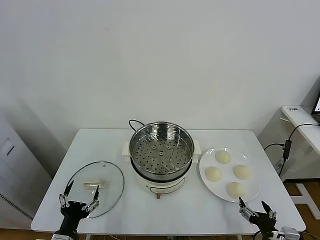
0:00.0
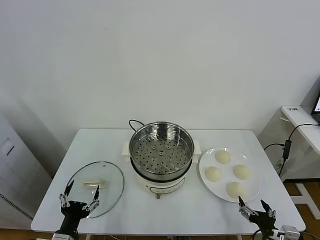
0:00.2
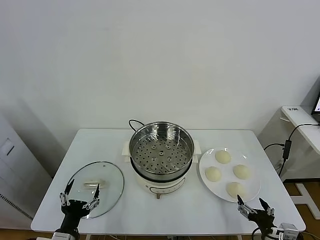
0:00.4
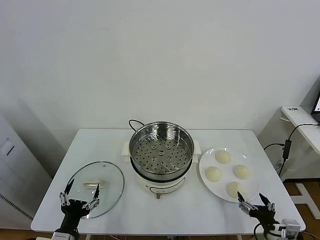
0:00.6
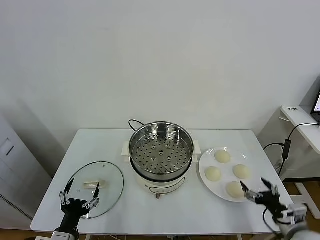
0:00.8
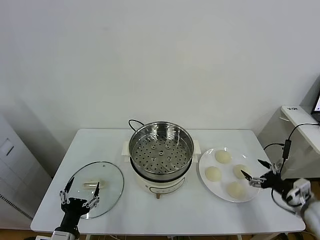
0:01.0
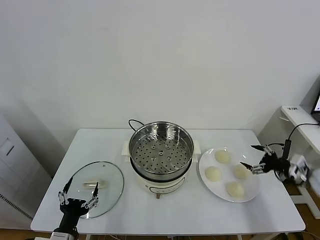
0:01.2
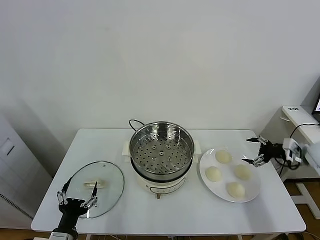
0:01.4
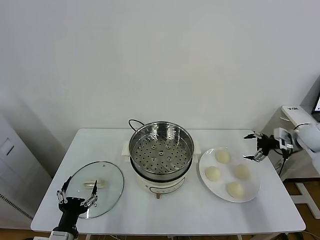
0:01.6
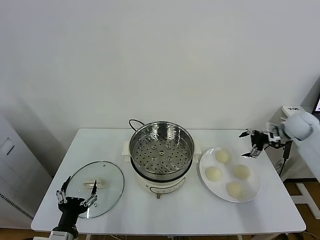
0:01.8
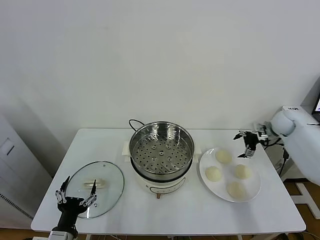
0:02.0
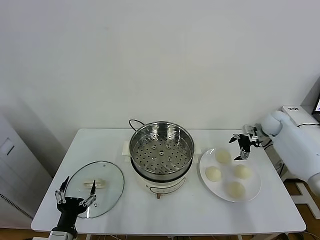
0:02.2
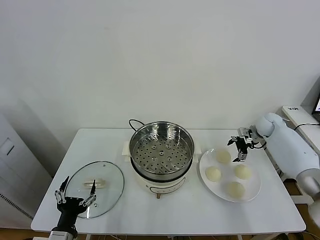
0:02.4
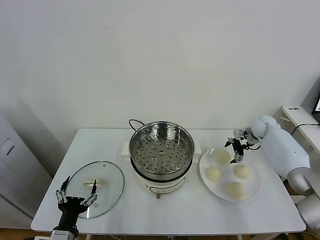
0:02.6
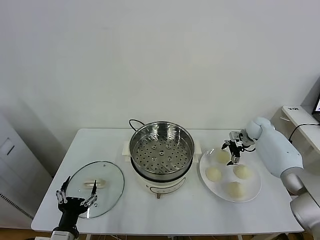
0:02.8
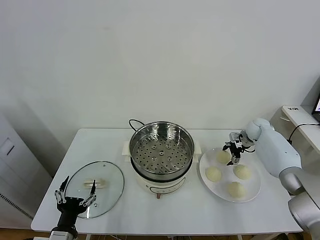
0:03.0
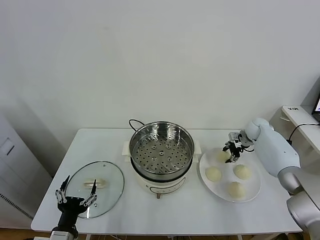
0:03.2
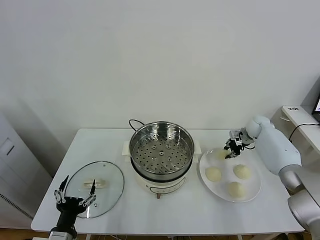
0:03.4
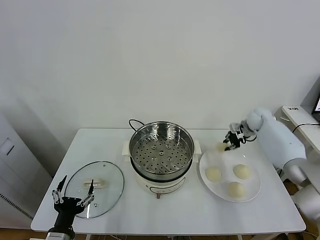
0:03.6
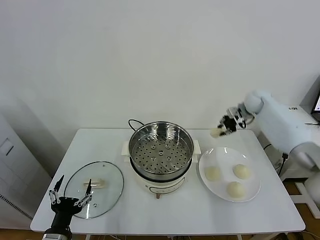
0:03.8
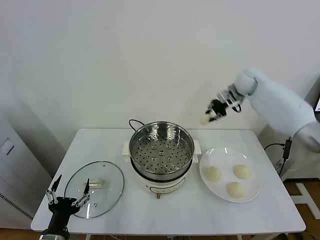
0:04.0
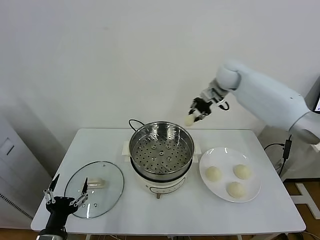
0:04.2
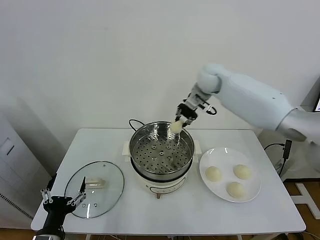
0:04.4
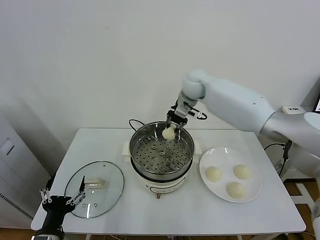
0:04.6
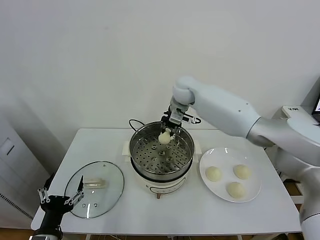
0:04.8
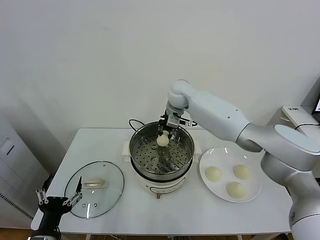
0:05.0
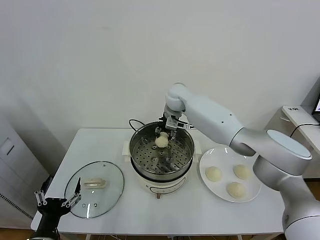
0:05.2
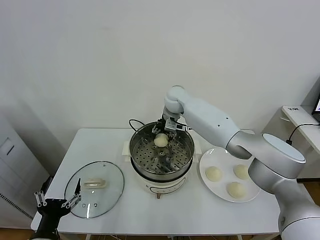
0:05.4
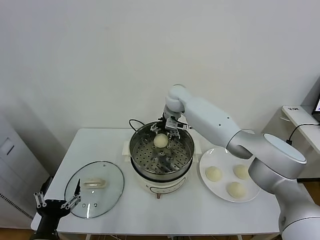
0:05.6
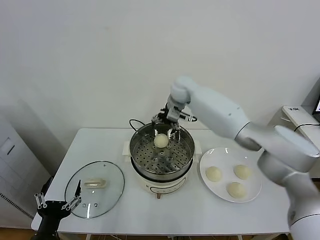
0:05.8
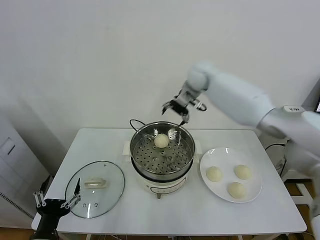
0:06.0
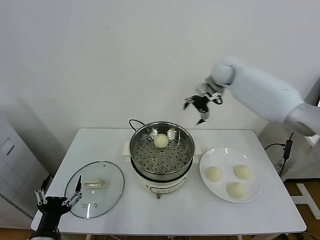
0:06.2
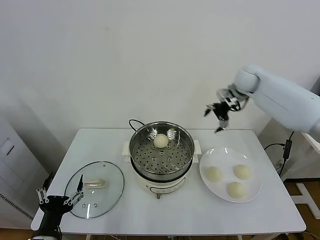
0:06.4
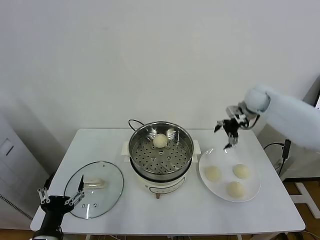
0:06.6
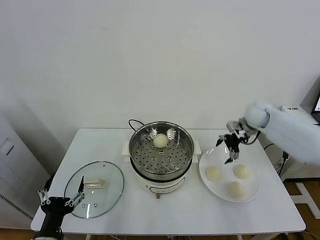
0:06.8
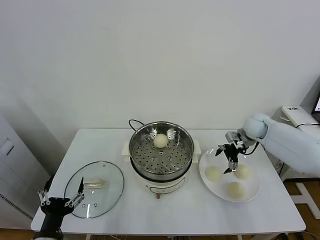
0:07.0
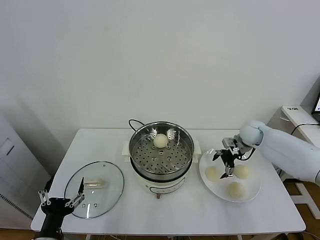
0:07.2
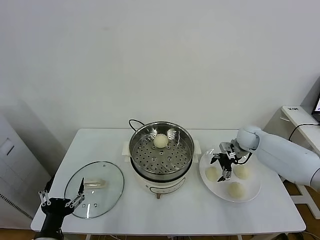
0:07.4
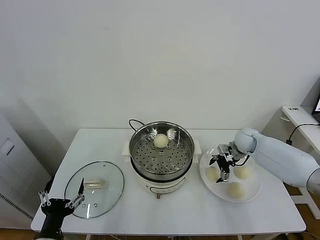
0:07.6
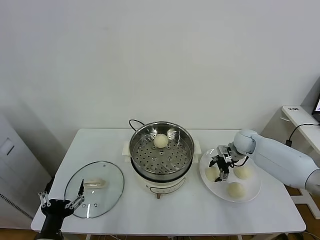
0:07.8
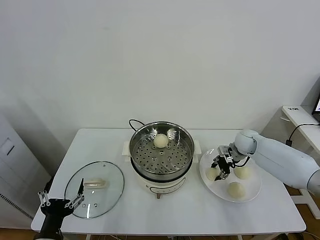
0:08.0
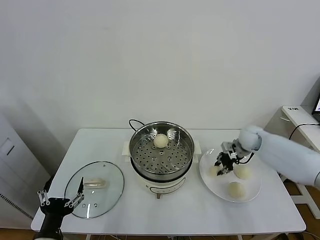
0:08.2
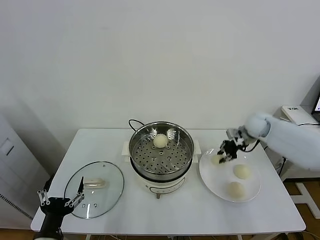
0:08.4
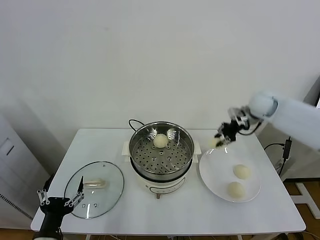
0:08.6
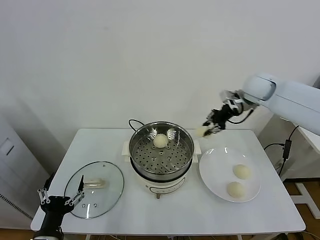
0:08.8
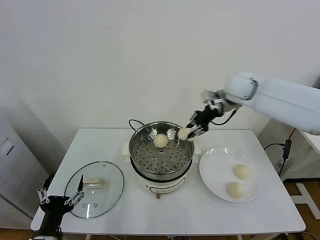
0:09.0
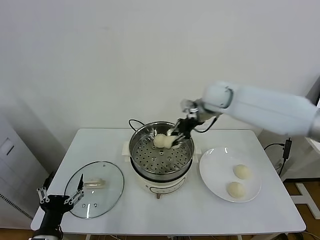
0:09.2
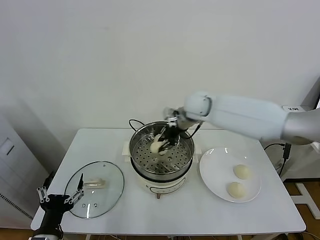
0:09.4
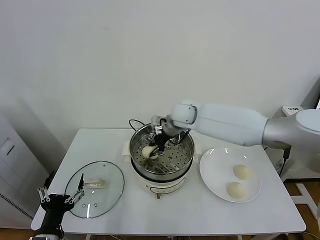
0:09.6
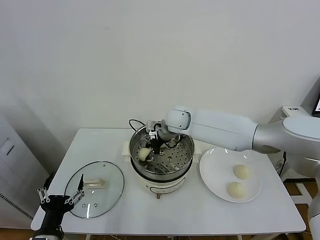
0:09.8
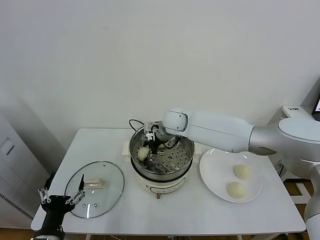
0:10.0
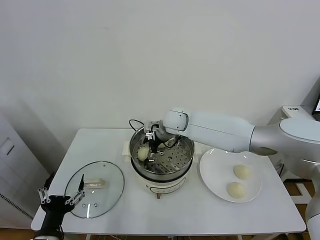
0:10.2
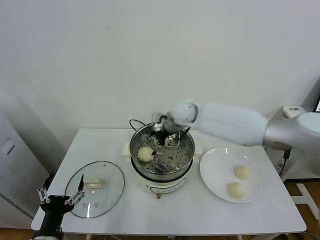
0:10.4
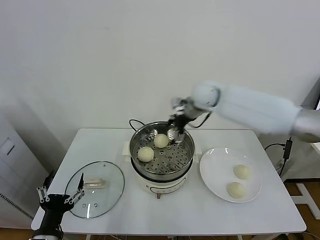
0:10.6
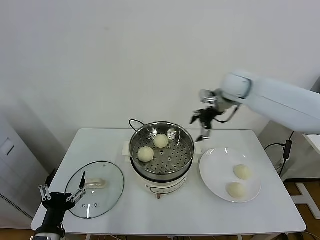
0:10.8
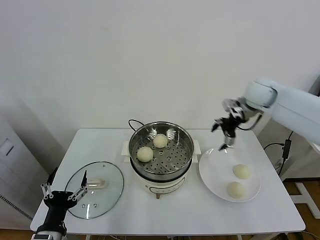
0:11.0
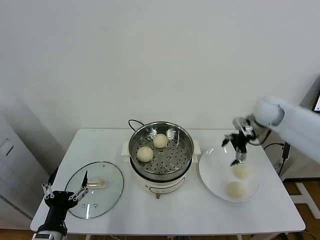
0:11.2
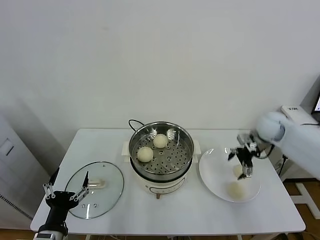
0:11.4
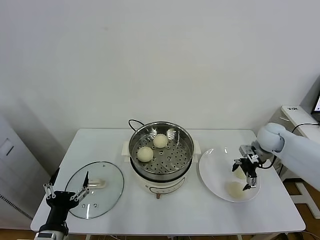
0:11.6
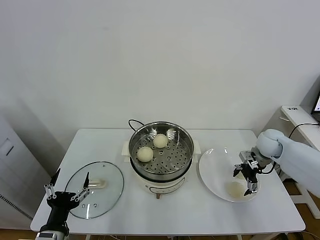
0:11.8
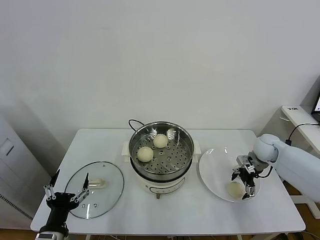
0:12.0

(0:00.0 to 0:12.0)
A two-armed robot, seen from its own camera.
Task of the whole recording: take steamed baozi put them in steamer.
Step, 0:00.0 - 0:03.2: Grasp the baozi in the plate with right gripper.
Step, 0:03.4 - 0:05.6: Place the baozi on the steamer with right gripper.
Step, 0:05.8 - 0:08.0: Grasp the baozi in the plate with right gripper.
Step, 0:08.2 - 0:10.2: Place the baozi on the steamer with right gripper.
0:01.6 - 0:03.0: The right gripper moves downward, forward and to the left, approximately 20 cm.
0:03.0 - 0:04.4: The right gripper shifts some 35 cm to the left and upward, and closes its fingers.
0:04.4 - 0:06.0: The right gripper reaches some 10 cm to the left, then returns, and opens up.
0:06.0 - 0:07.6: The right gripper is displaced downward and to the right by about 30 cm.
0:07.6 - 0:09.0: The right gripper shifts some 25 cm upward and to the left, and closes its fingers.
0:09.0 - 0:10.4: The right gripper travels to the left and downward by about 15 cm, and opens.
0:10.4 - 0:12.0: The right gripper is displaced to the right and downward by roughly 35 cm.

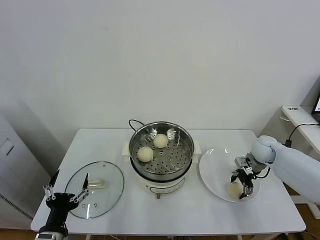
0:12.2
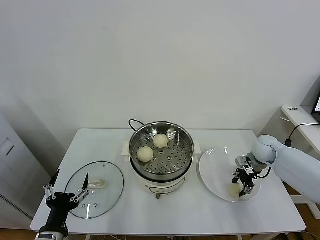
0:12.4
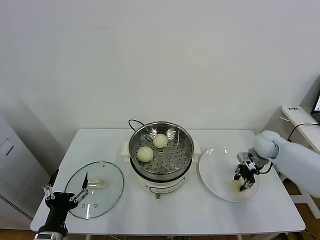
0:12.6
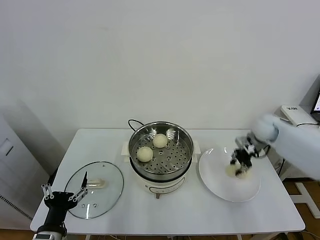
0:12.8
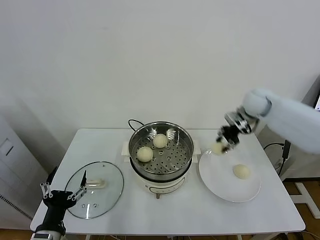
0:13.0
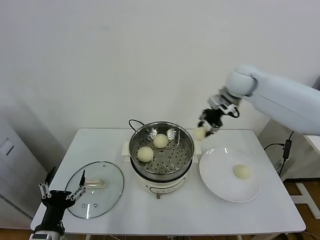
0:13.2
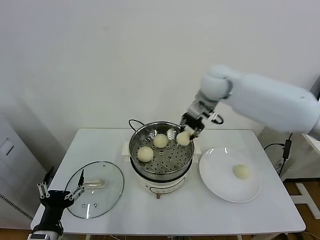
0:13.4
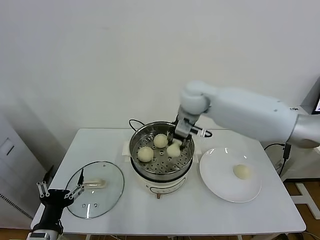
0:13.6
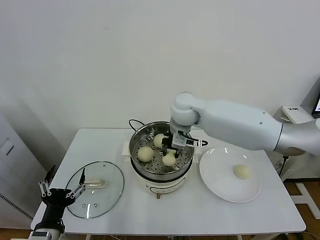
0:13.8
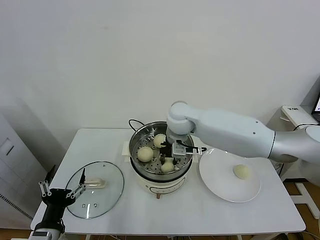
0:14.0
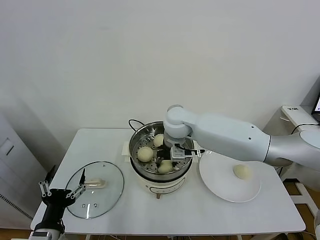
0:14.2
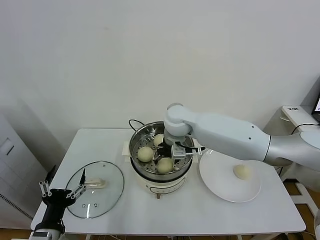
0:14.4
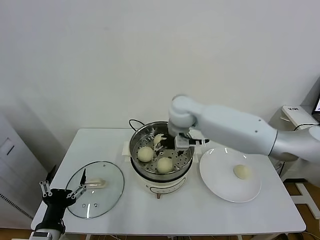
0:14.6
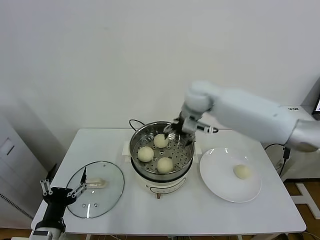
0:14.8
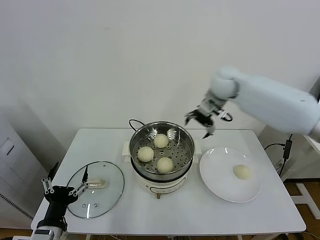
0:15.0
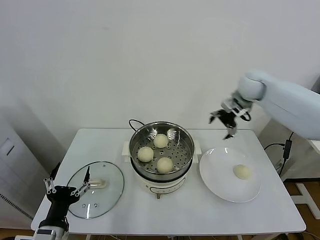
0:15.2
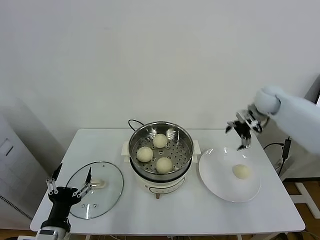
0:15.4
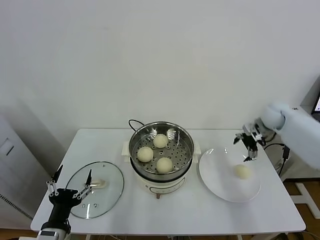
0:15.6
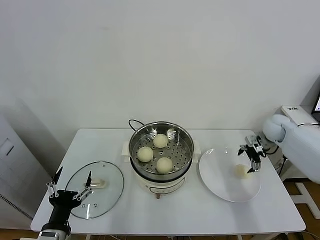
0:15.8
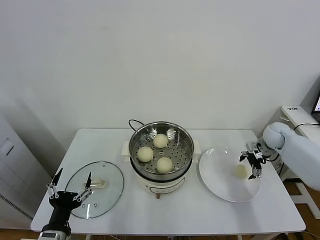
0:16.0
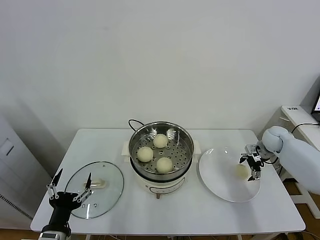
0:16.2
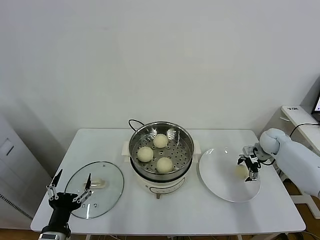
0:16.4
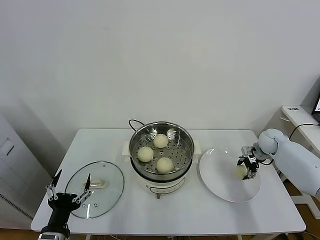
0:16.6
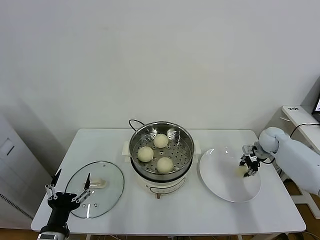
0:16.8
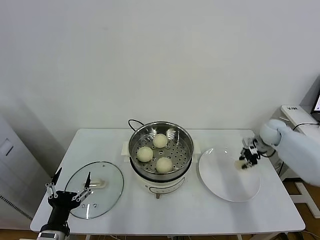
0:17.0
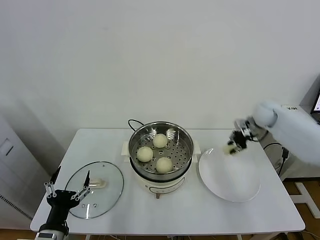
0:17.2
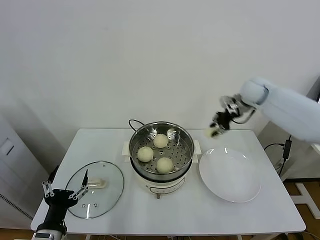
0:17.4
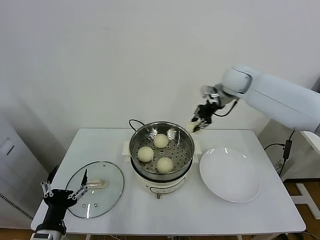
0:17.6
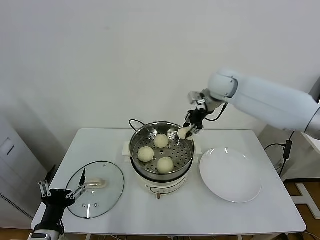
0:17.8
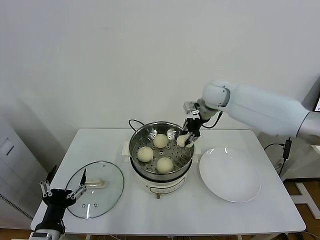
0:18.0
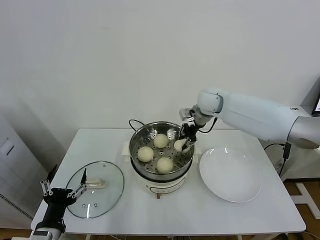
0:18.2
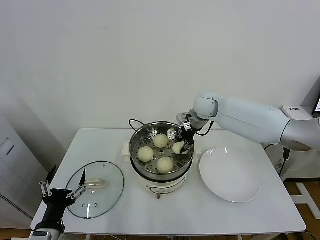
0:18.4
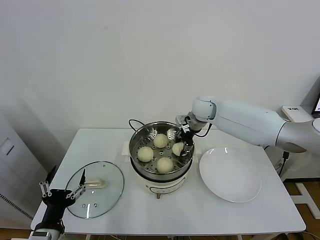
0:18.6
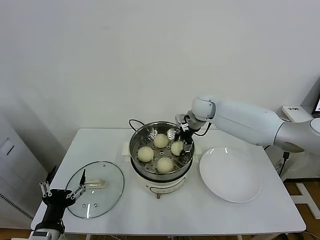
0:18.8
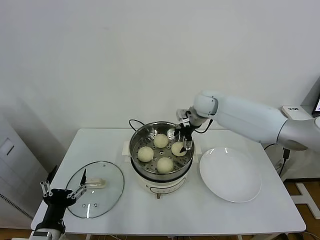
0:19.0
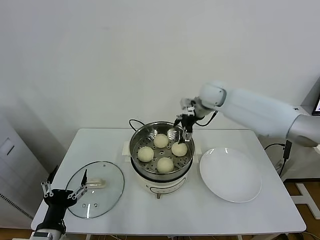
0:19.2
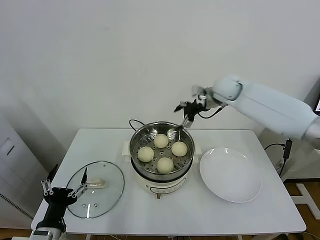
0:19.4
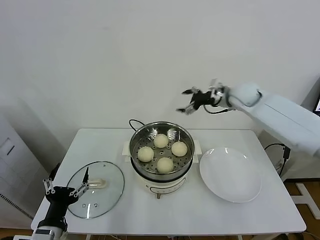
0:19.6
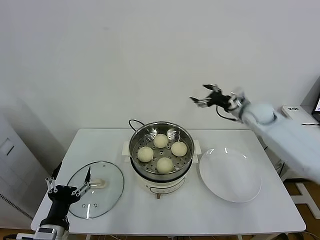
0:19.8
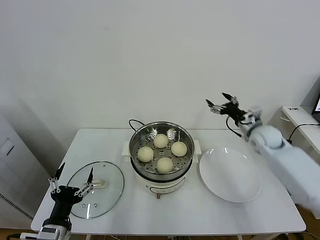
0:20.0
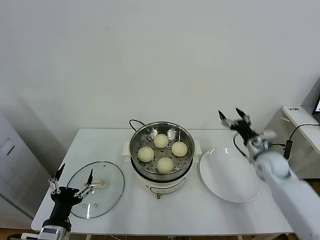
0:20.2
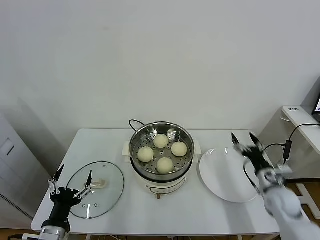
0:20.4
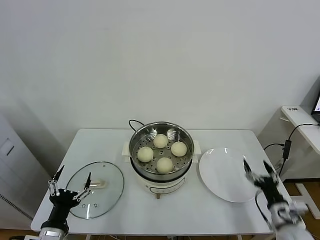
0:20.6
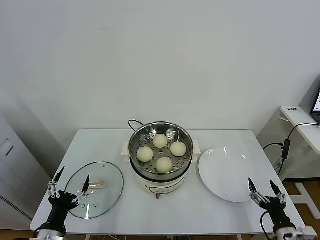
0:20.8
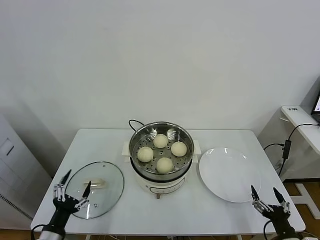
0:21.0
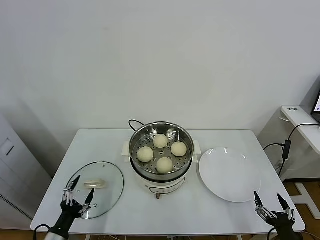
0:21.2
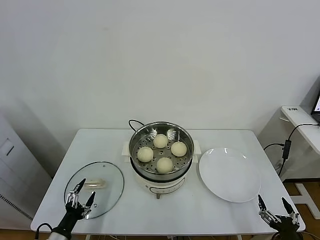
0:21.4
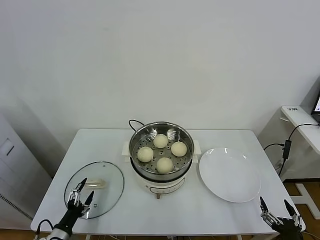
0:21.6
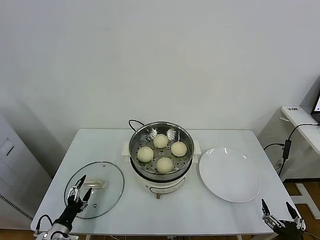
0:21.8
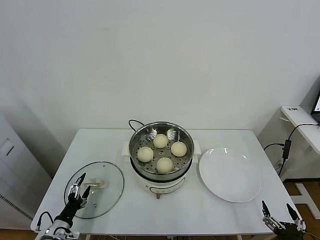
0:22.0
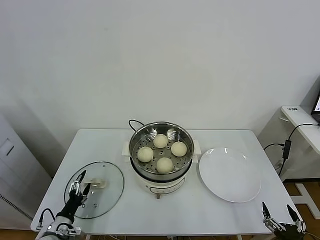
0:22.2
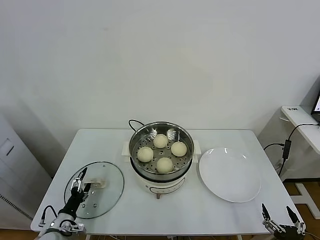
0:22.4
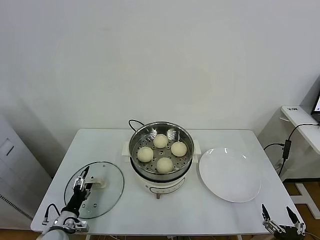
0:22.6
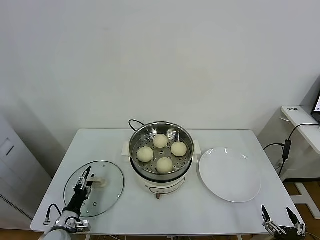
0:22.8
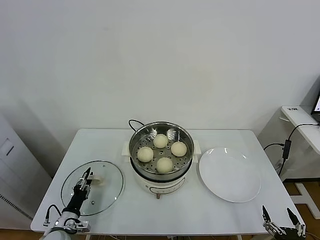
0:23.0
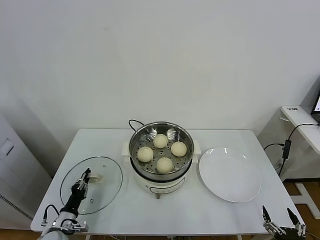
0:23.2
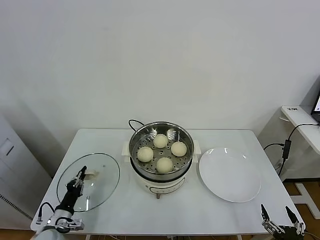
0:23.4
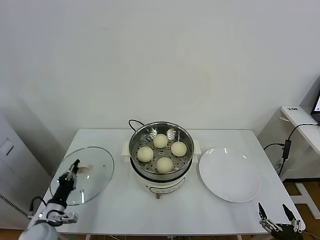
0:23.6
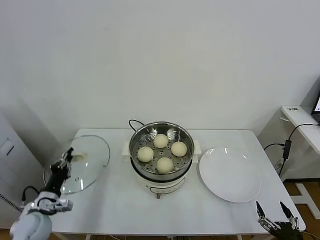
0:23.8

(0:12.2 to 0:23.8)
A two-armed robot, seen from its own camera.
Task of the whole recording: take steamed baozi put them in steamer.
Step, 0:12.6 - 0:14.4: Place the baozi on the steamer with right gripper.
Step, 0:14.6 - 0:16.6: Grasp the baozi in the plate with right gripper.
Step, 0:16.8 - 0:19.0: Place the baozi on the steamer with right gripper.
Step, 0:19.2 - 0:23.4: Grasp the pot lid with left gripper.
0:12.2 - 0:13.6: The right gripper is displaced to the left and upward by approximately 35 cm, and closes up.
0:13.6 - 0:15.0: The right gripper is displaced to the right and forward by some 15 cm, and opens up.
0:15.0 - 0:16.6: The right gripper goes roughly 35 cm downward and to the right.
0:16.6 - 0:18.0: The right gripper shifts about 35 cm to the left and upward, and closes its fingers.
0:18.0 - 0:19.4: The right gripper opens its fingers.
0:19.4 - 0:21.0: The right gripper shifts about 60 cm backward and downward. The left gripper travels downward by roughly 5 cm.
0:21.0 - 0:22.4: The right gripper goes roughly 5 cm backward. Meanwhile the left gripper is displaced downward and forward by some 15 cm.
0:22.4 - 0:23.8: The left gripper heads upward, covering roughly 10 cm, and closes up.
